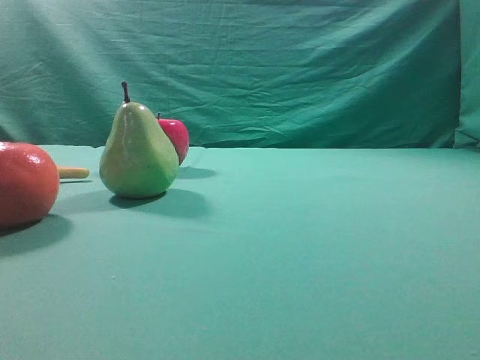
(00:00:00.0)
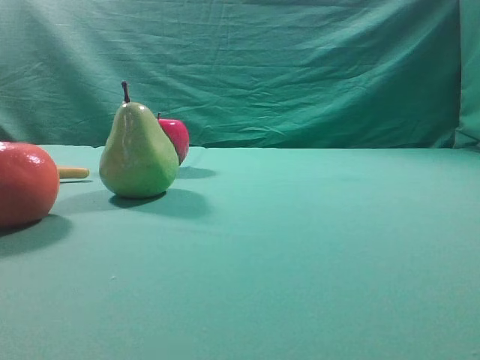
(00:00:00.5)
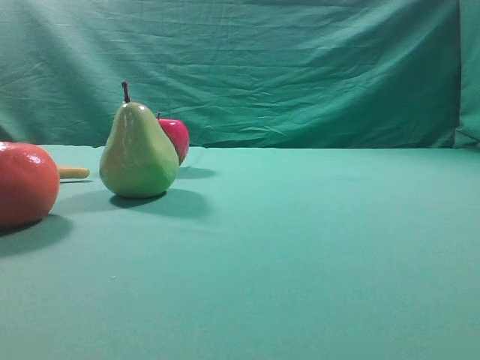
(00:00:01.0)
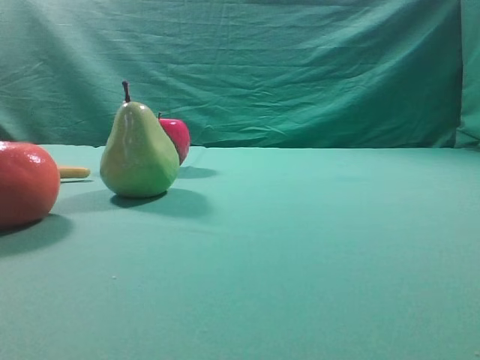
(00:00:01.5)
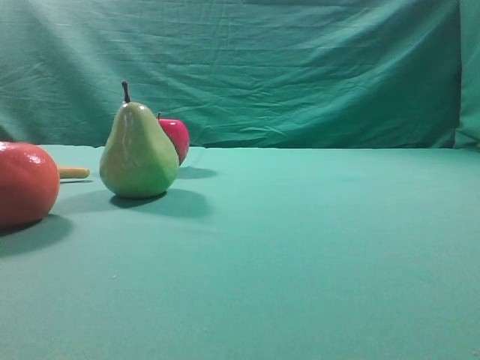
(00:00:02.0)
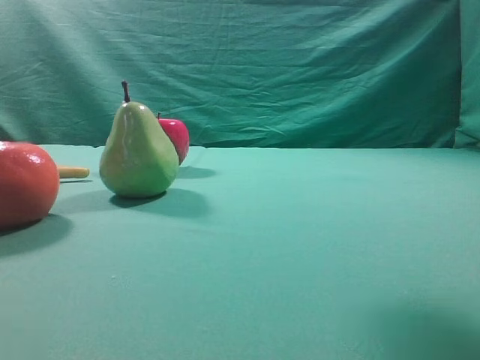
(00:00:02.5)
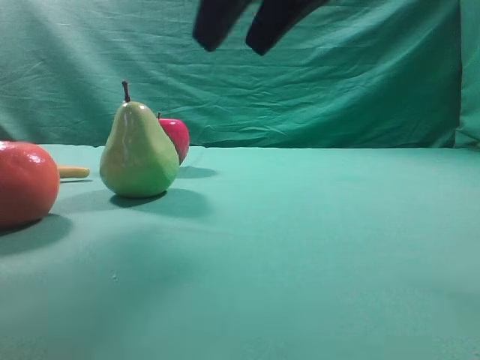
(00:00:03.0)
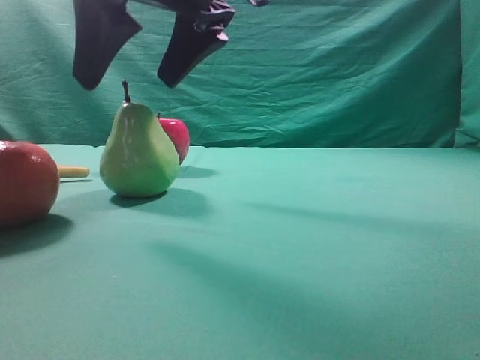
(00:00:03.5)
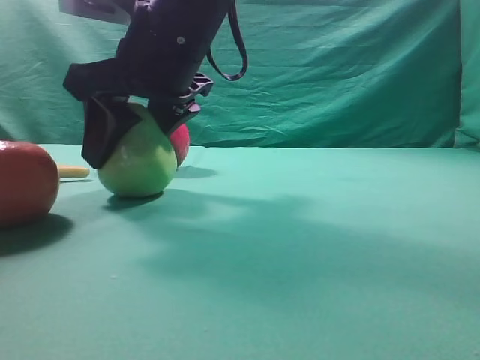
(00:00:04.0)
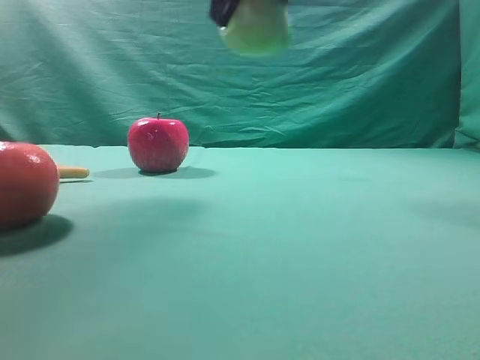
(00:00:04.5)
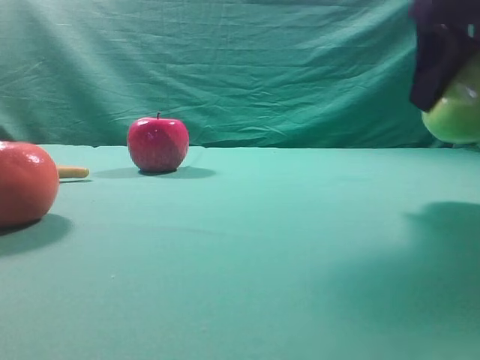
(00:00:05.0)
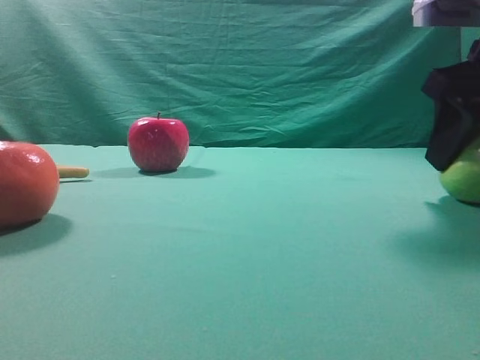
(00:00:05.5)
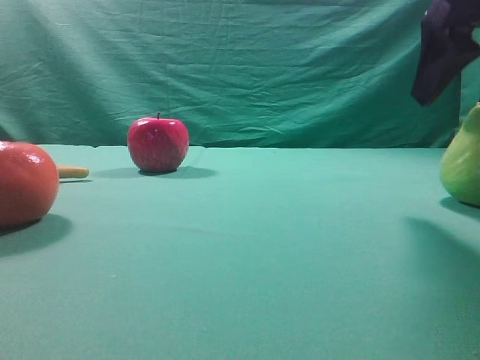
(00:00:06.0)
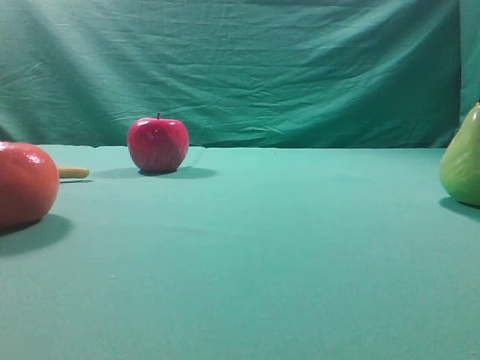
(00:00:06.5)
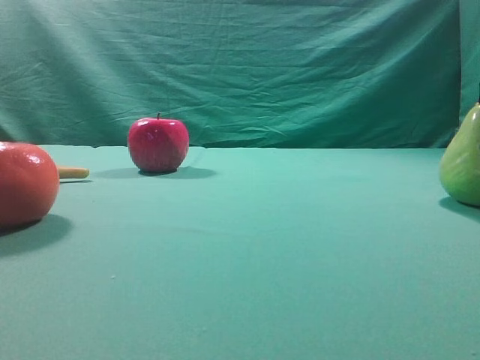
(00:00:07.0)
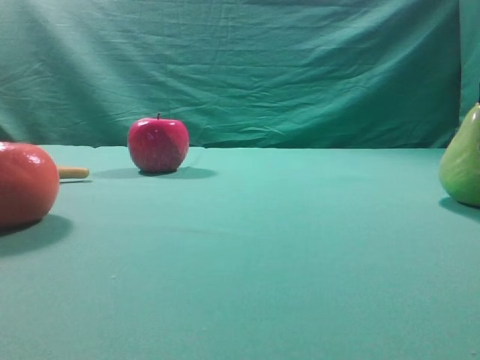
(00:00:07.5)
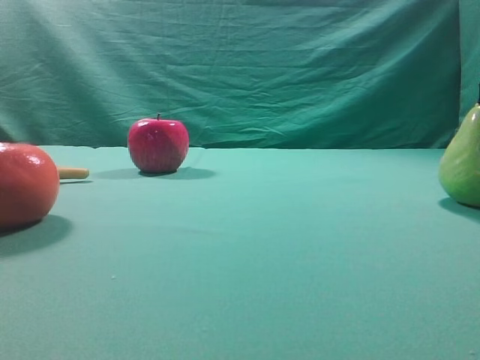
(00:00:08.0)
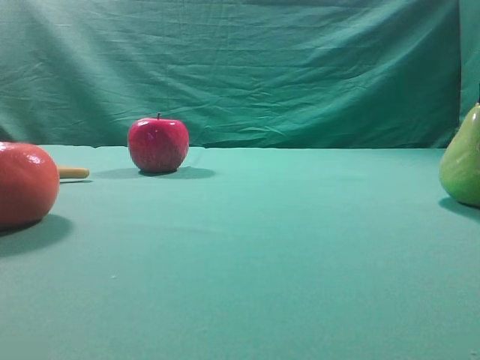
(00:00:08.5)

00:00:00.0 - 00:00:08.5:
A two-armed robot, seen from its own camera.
Task of the whole recording: Grasp the pear and place it on one side of the table.
Step, 00:00:00.0 - 00:00:04.0: Grasp the high-fiber fruit.
Step, 00:00:04.5 - 00:00:05.5: Place it on the right side of the table.
